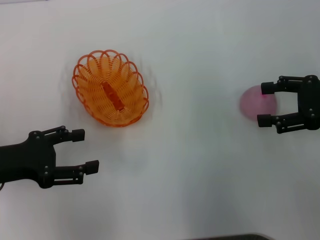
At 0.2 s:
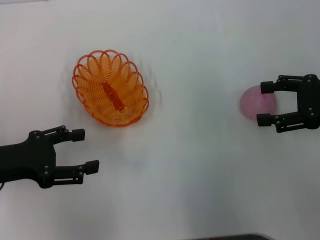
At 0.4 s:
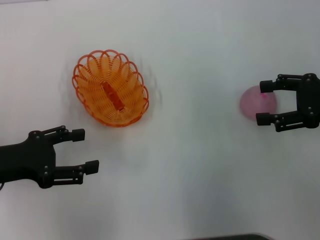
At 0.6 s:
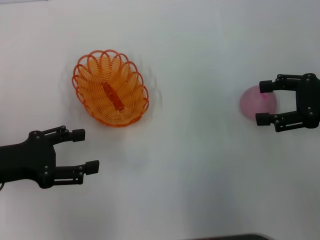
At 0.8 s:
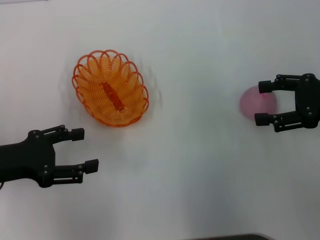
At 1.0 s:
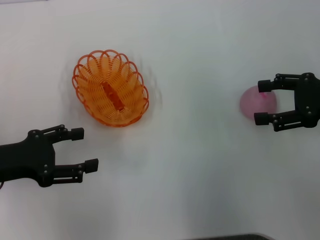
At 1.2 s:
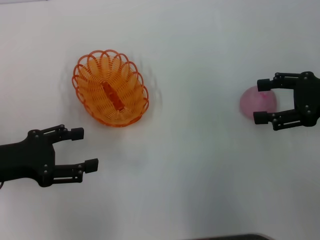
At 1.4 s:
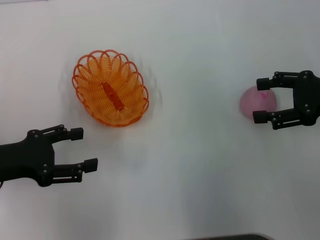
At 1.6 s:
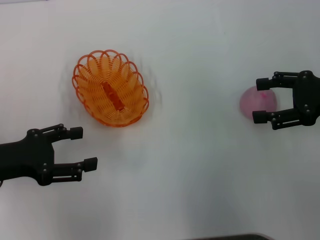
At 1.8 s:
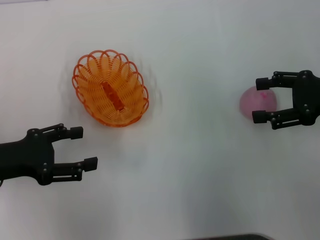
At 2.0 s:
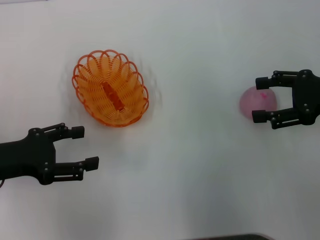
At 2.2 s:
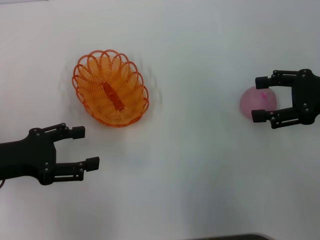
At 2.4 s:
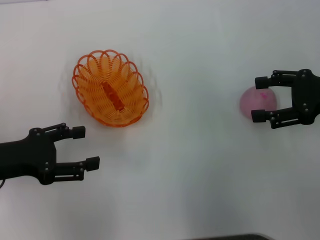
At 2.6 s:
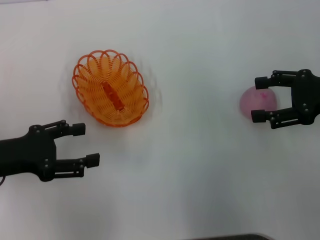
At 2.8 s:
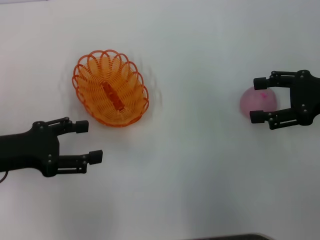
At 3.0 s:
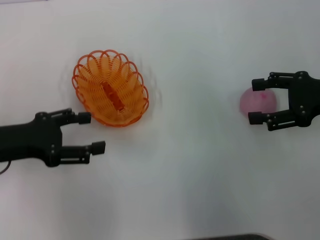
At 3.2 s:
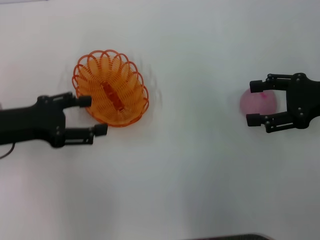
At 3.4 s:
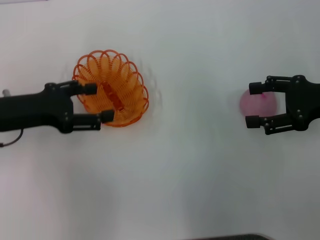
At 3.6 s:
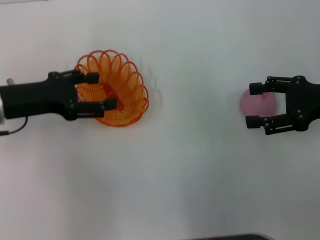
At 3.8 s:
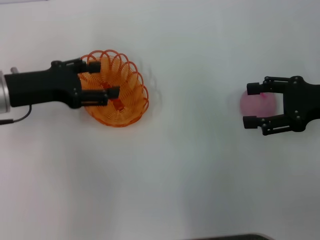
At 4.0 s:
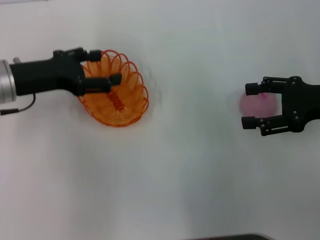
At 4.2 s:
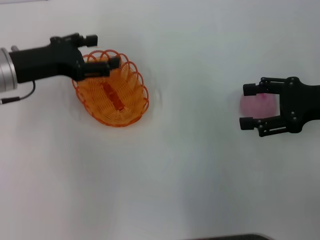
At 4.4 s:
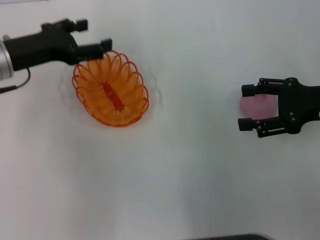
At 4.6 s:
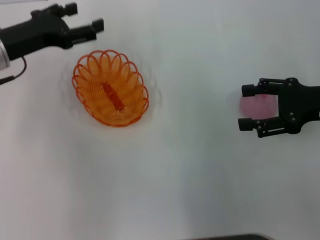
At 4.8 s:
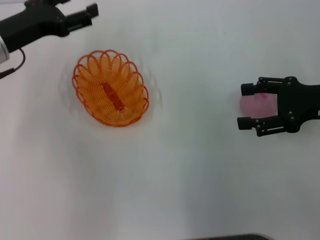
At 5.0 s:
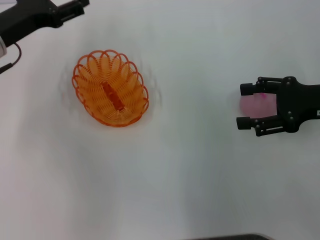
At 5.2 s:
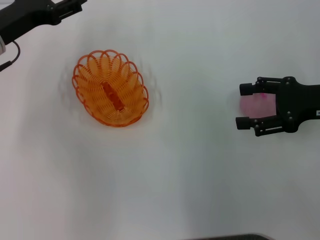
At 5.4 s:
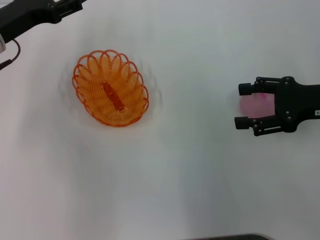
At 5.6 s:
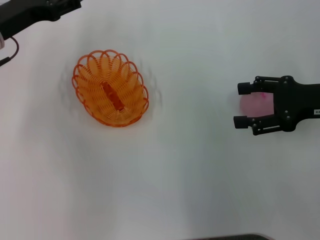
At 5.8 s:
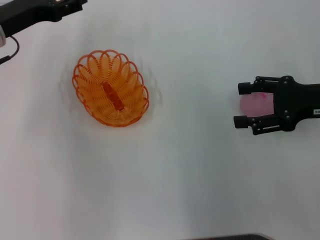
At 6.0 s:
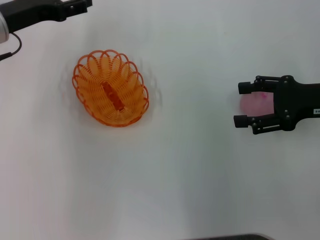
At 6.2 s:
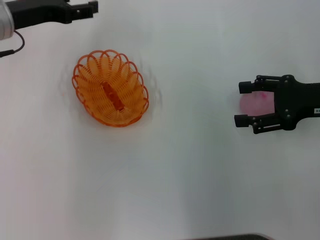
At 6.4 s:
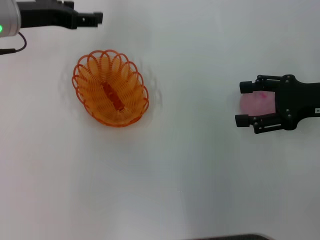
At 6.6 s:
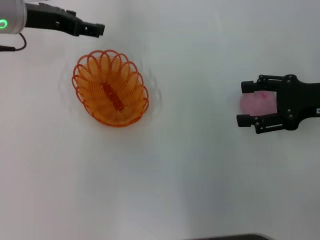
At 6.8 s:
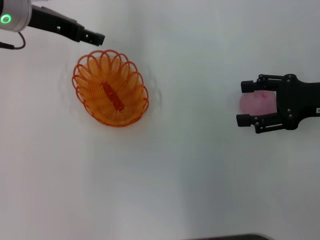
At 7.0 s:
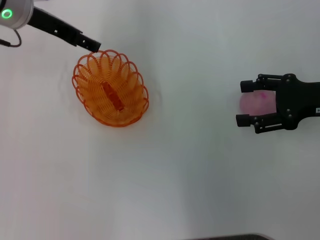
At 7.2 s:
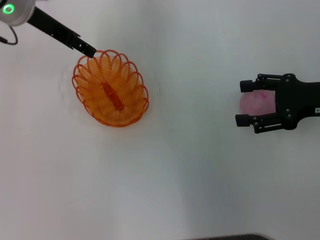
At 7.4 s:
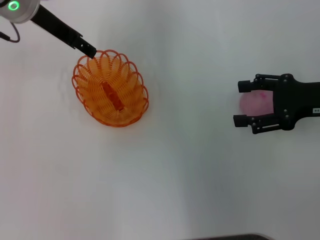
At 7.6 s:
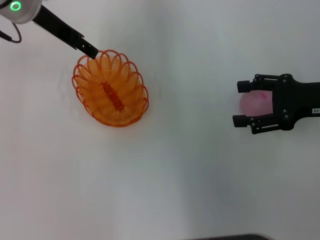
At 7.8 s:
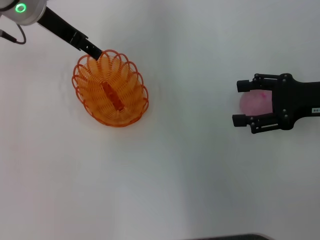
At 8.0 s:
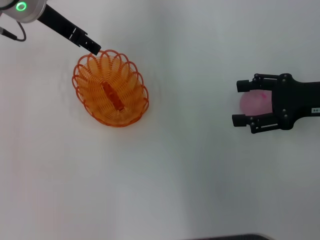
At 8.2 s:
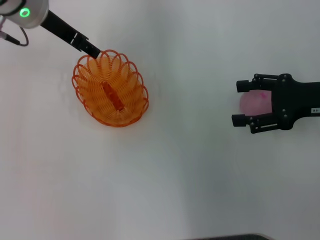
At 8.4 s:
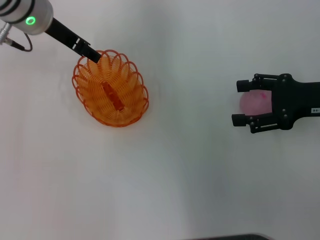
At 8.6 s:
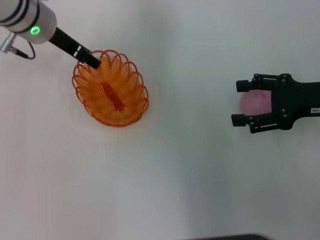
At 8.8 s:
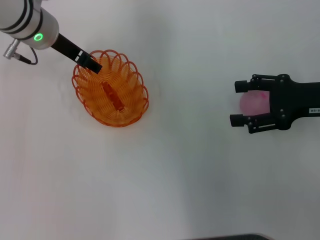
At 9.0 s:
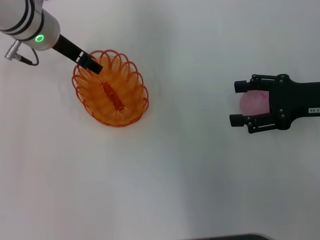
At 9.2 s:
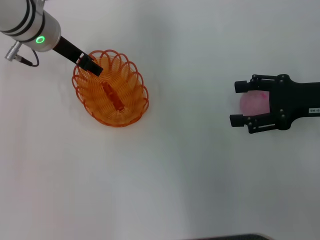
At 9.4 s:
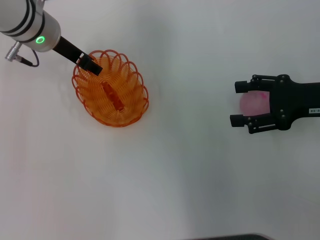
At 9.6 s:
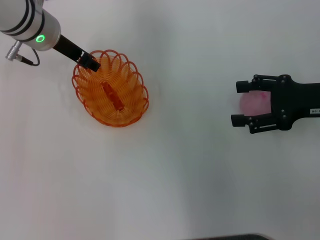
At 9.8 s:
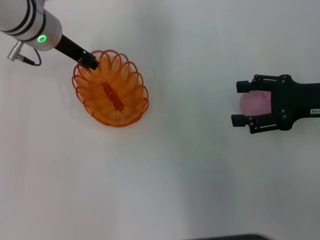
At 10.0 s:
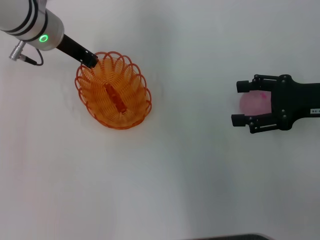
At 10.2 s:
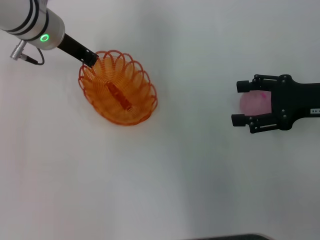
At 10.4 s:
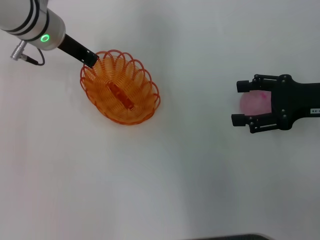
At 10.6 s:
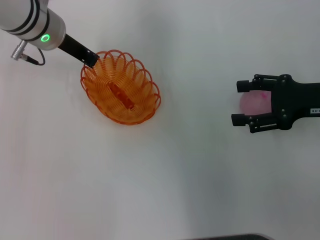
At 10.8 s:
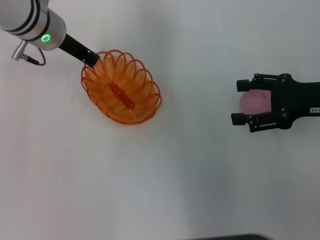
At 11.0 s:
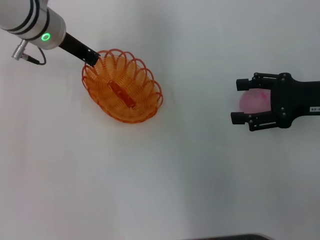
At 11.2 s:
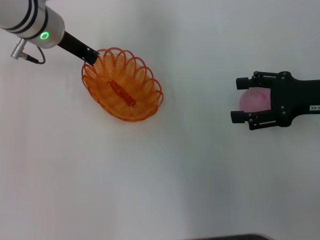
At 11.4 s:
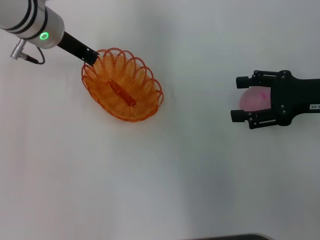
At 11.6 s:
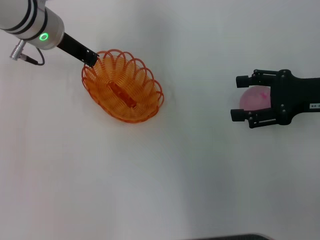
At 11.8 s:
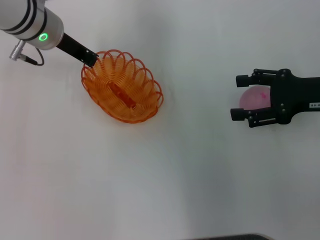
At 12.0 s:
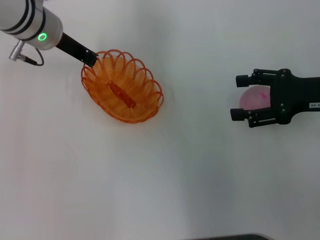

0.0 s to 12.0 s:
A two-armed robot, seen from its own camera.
Step, 0.0 to 10.8 s: Pick up the basket with the left gripper.
0.0 to 1.6 s: The two grippers keep their place.
1.6 to 3.0 s: The grippers make only small movements.
3.0 to 4.4 s: The left gripper moves forward, some 10 cm.
4.4 to 6.0 s: There are only small adjustments of the grippers.
6.0 to 7.6 s: The left gripper goes roughly 10 cm to the right and upward.
7.6 to 9.0 s: The left gripper moves downward, approximately 5 cm.
9.0 to 10.4 s: The left gripper closes up.
10.4 to 12.0 s: The two grippers keep their place.

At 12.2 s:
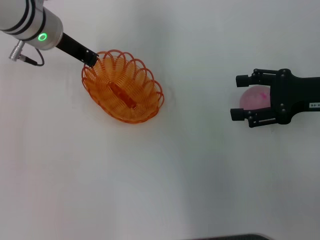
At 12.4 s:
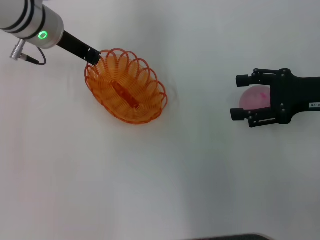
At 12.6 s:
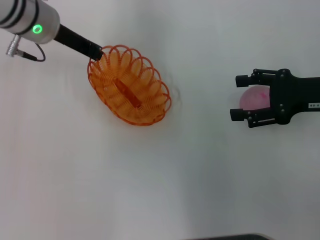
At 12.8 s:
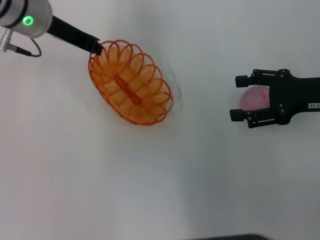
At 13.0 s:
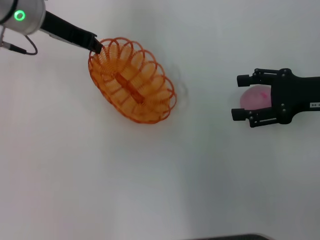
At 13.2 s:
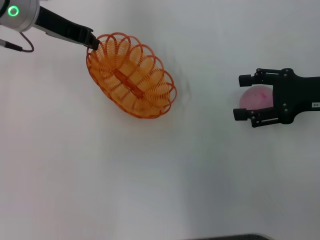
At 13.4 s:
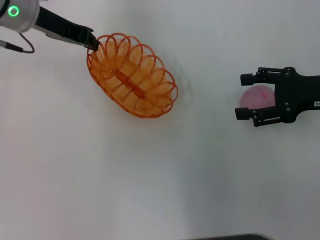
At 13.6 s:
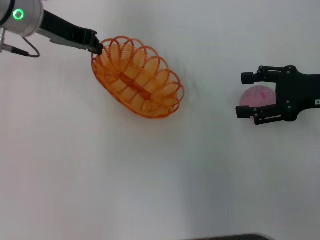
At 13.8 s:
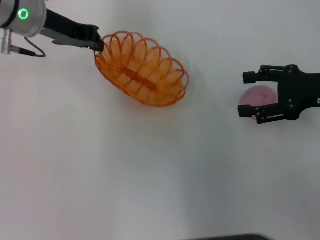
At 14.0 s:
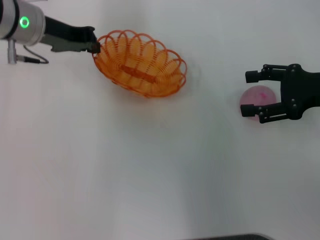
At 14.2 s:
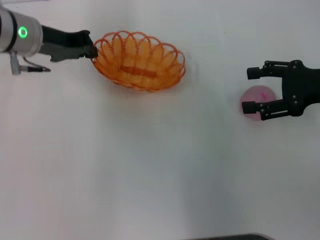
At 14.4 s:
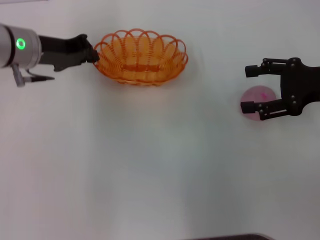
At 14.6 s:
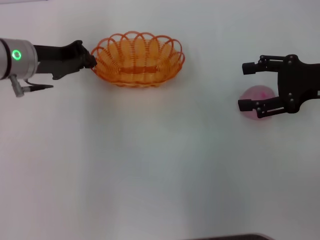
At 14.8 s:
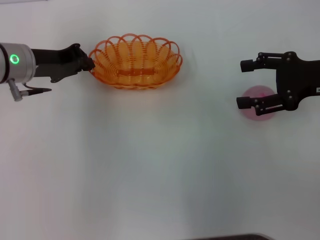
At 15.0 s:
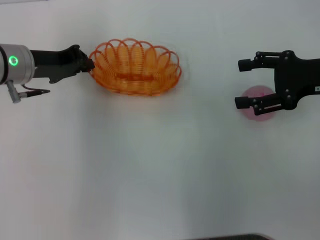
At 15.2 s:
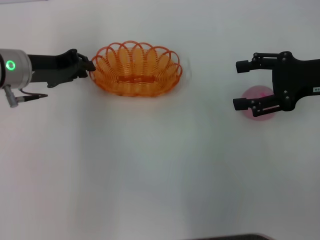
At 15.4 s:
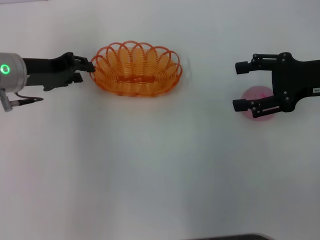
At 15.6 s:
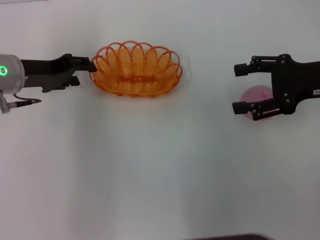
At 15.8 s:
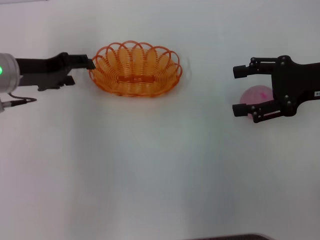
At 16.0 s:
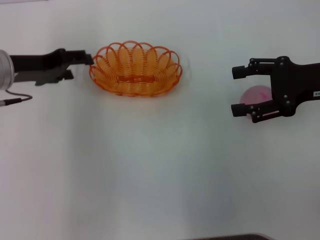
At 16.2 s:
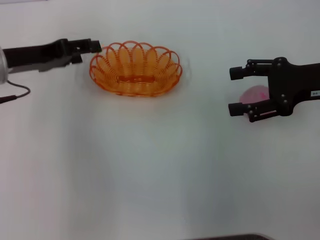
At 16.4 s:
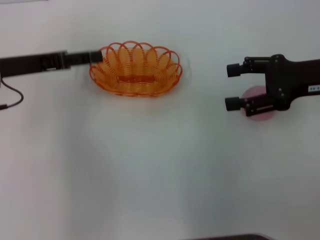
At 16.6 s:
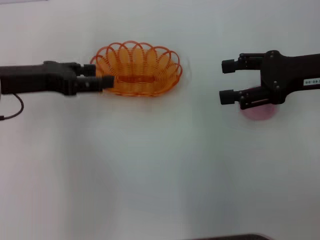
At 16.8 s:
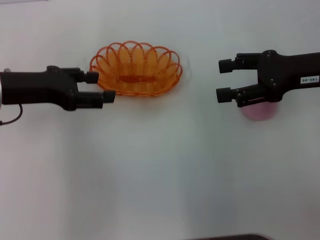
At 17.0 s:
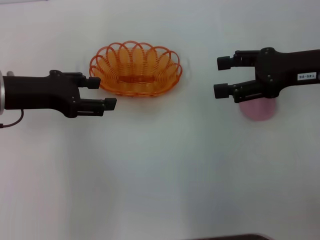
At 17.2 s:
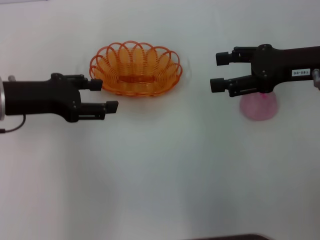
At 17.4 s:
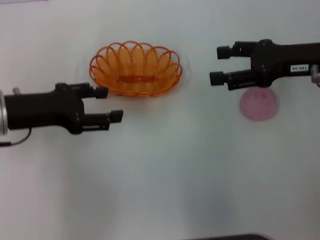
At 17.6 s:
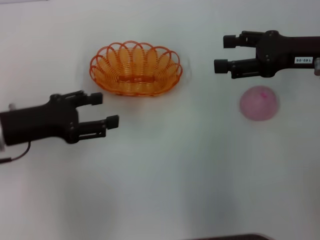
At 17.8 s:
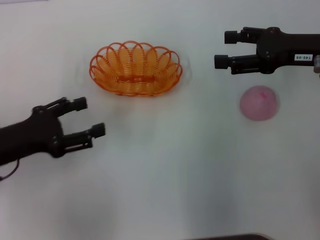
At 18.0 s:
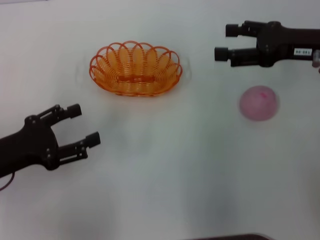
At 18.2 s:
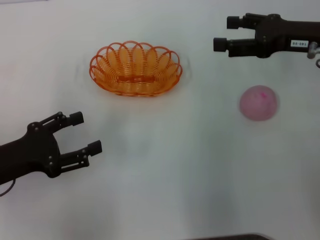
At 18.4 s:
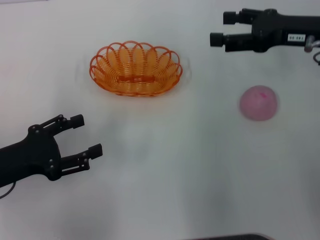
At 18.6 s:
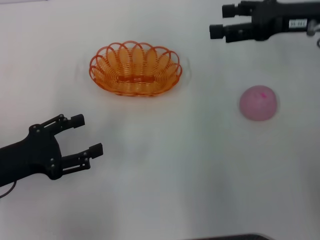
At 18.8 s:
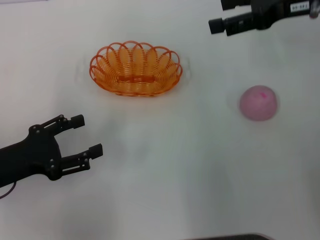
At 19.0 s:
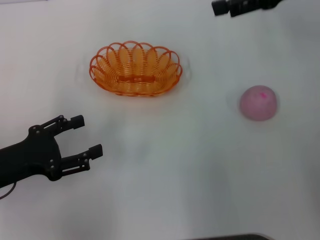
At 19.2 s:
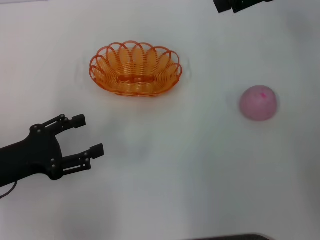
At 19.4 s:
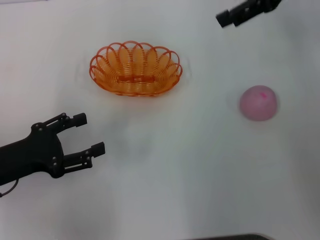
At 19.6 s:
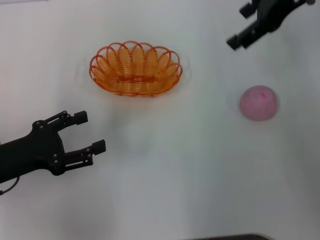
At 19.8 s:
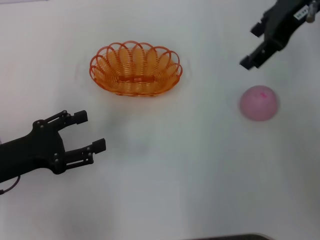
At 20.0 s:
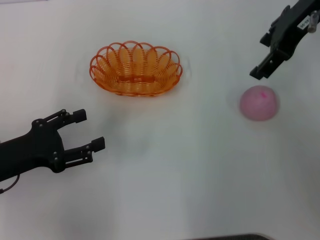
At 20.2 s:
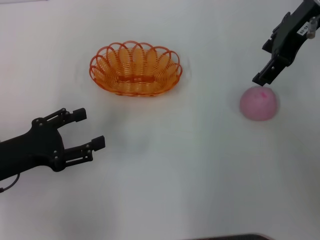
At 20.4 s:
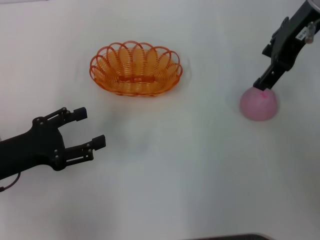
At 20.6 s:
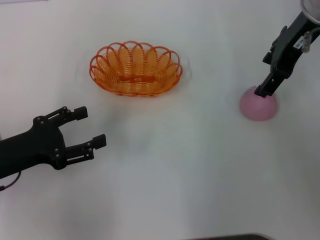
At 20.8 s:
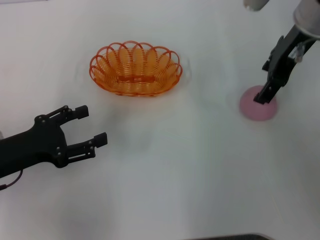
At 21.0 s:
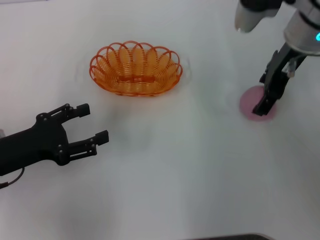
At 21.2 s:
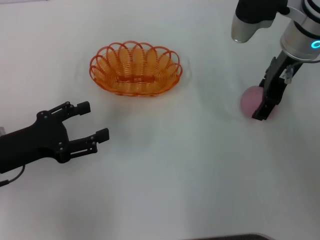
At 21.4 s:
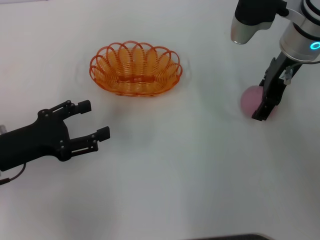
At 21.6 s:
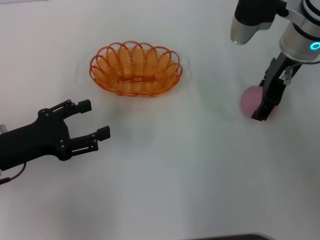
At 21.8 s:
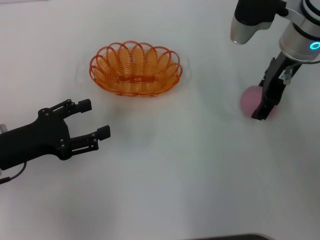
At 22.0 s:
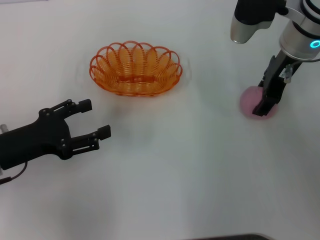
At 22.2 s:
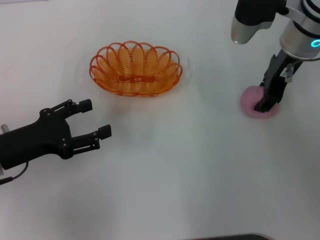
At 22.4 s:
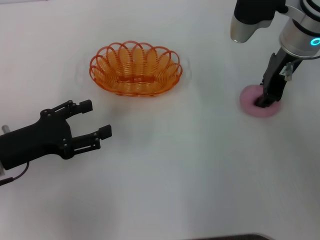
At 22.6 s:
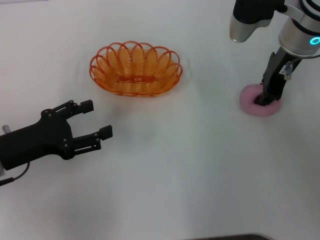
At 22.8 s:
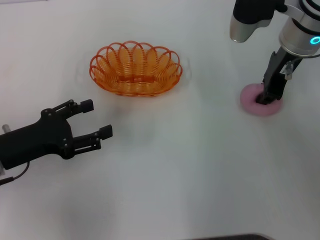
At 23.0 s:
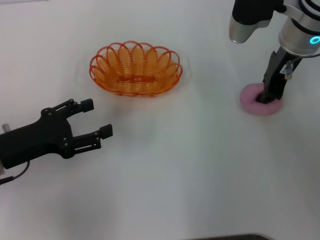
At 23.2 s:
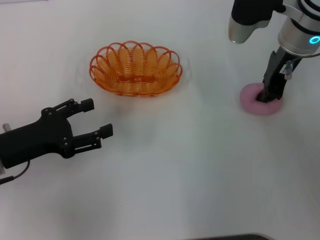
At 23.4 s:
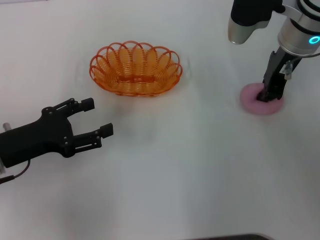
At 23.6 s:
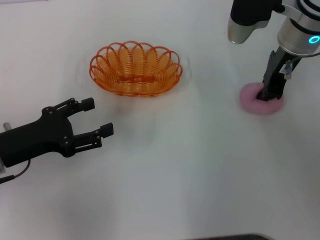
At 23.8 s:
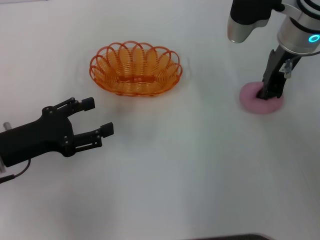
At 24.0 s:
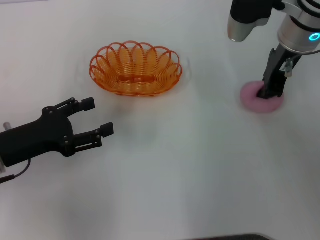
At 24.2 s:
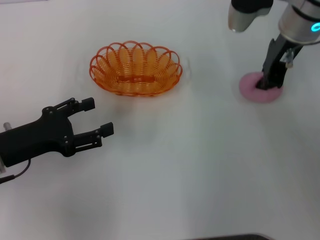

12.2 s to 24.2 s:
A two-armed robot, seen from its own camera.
Step, 12.2 to 16.2 s: Move the basket to the center of view with the left gripper.
13.8 to 15.2 s: The left gripper heads downward, covering about 5 cm.
15.2 to 16.6 s: The left gripper ends up approximately 5 cm from where it was, and opens.
16.6 to 18.2 s: The left gripper heads backward and downward, covering about 15 cm.
18.2 to 19.8 s: The right gripper travels upward and to the left by about 15 cm.
19.8 to 21.2 s: The right gripper is displaced downward by approximately 10 cm.
21.2 to 22.6 s: The right gripper closes its fingers.
22.6 to 24.2 s: The right gripper closes up.
